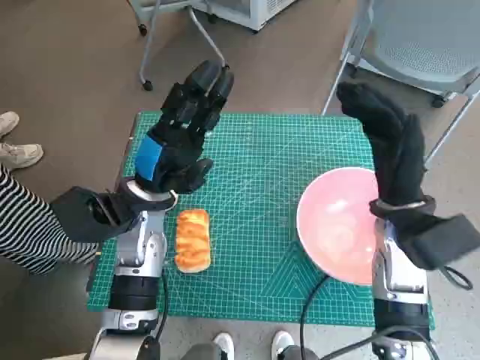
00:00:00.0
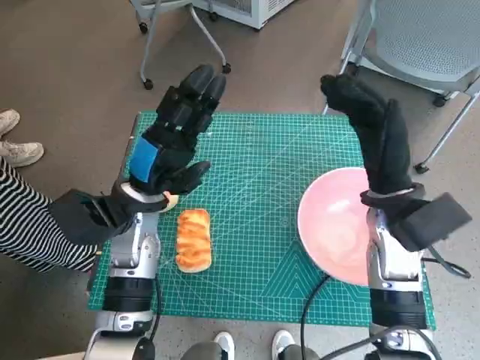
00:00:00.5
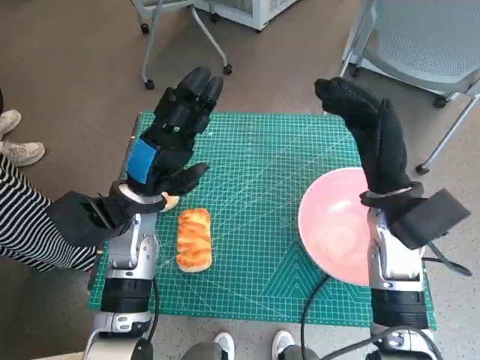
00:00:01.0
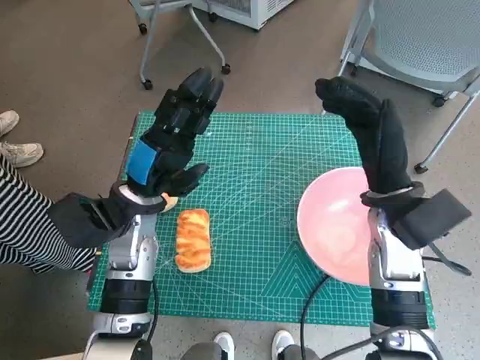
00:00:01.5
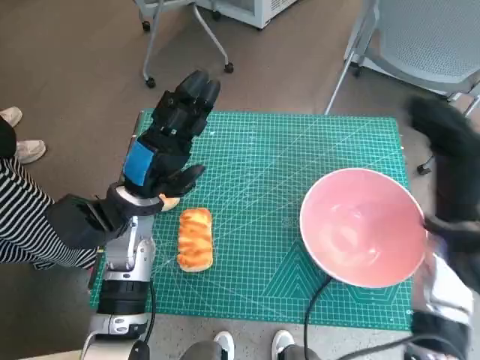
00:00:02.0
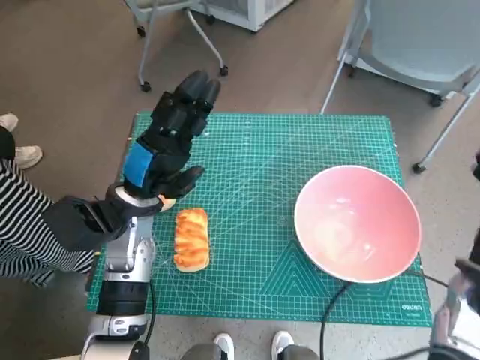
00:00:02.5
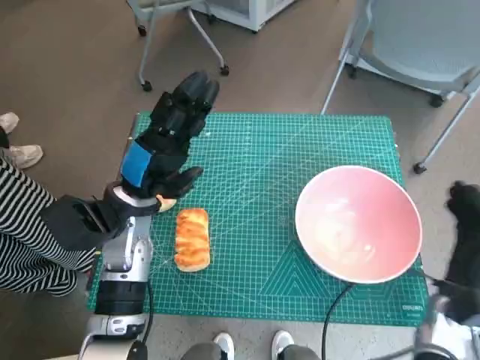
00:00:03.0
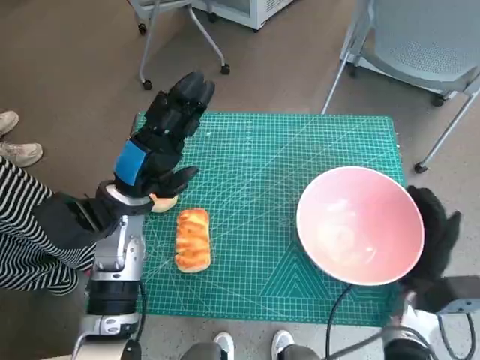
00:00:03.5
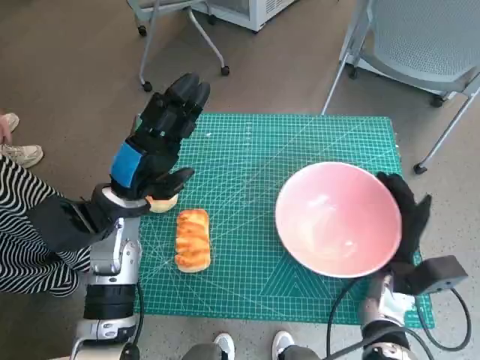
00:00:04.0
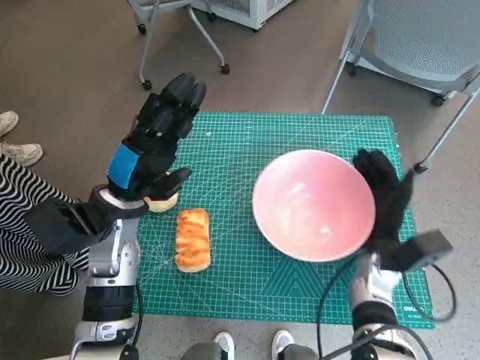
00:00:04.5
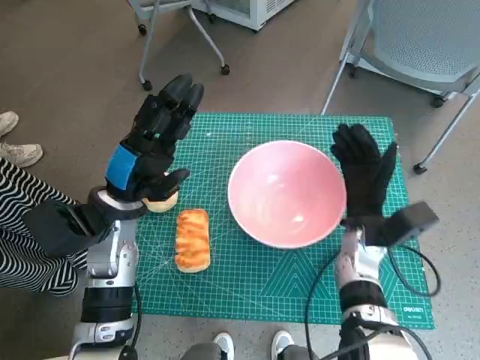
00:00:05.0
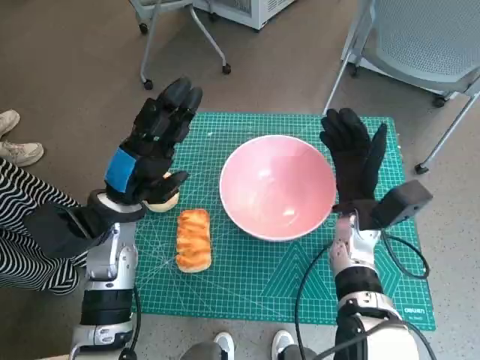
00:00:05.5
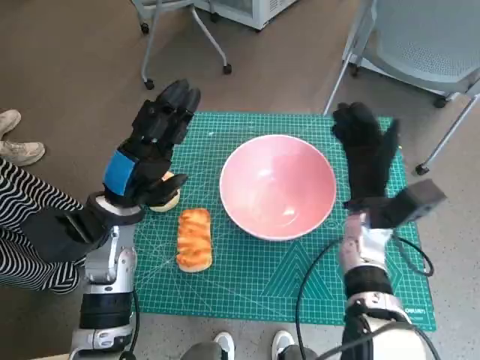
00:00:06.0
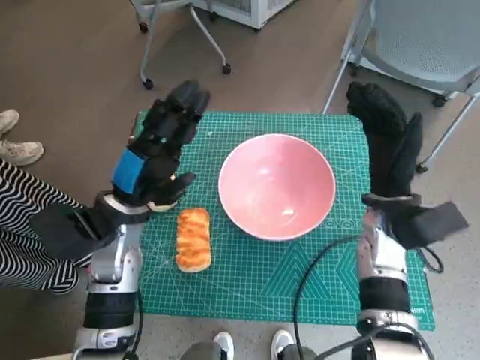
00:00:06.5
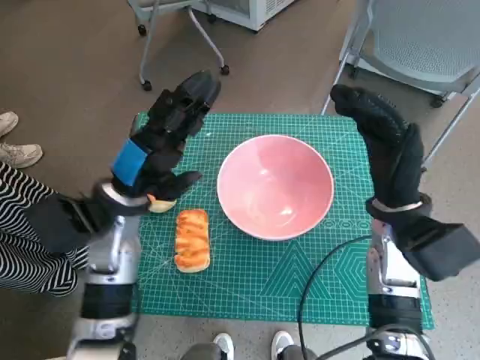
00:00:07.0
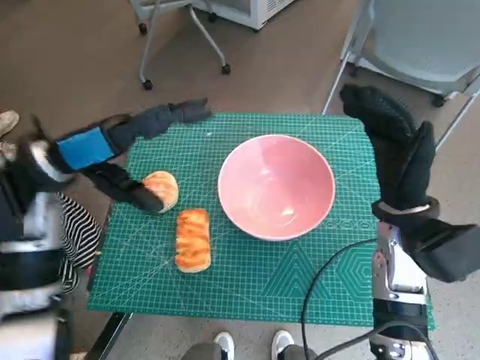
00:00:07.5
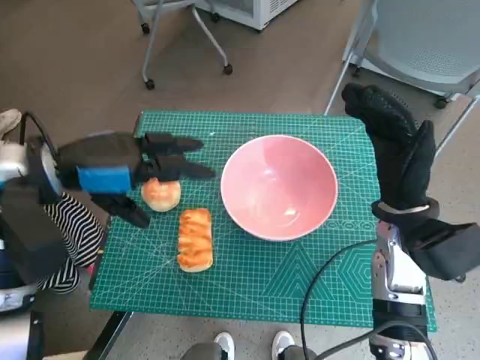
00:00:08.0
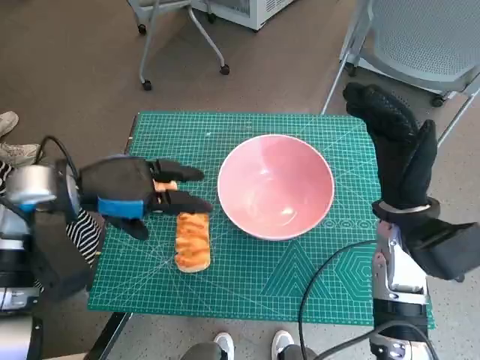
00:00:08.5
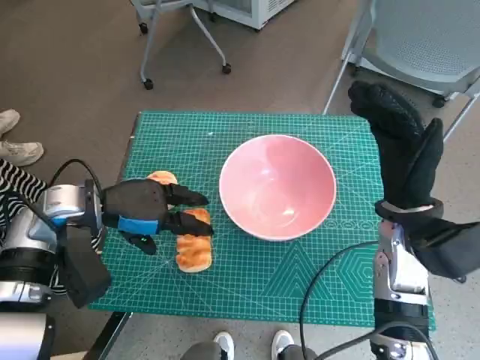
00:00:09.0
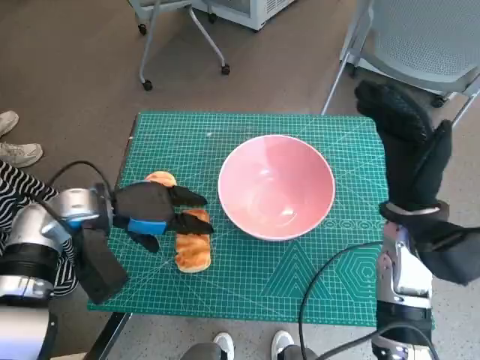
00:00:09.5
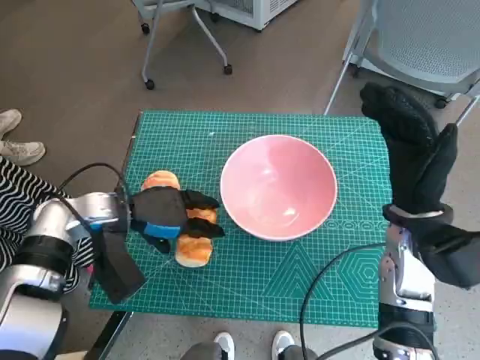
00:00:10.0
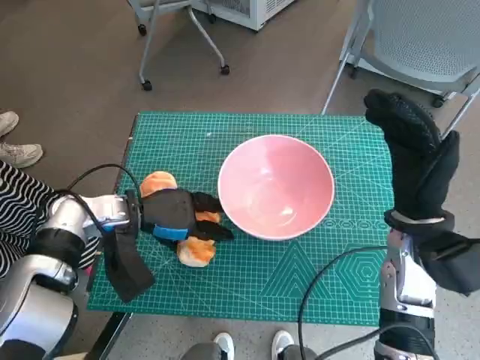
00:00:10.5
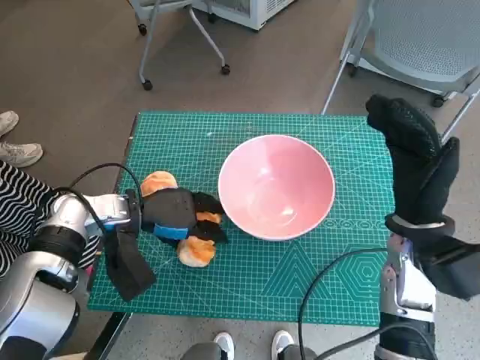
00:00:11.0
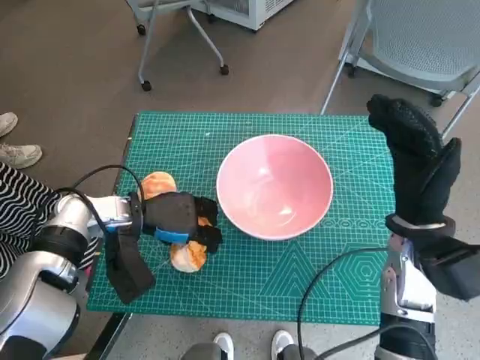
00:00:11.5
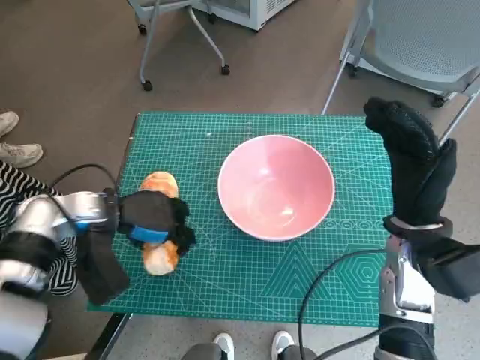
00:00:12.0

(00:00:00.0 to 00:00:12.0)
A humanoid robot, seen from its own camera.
Task of the whole recording: Push the bowl into the center of the table and put the bread into the bowl.
Step, 00:00:00.0 - 00:00:06.0: Move the pink bowl to the center of table with right hand.
Step, 00:00:06.5 - 00:00:11.5: Grasp the long bread with left hand.
00:00:02.0 - 00:00:04.0: The right hand goes some 15 cm downward.
00:00:04.0 - 00:00:06.0: The right hand heads forward, upward and to the left, covering some 10 cm.
00:00:06.0 - 00:00:08.0: Both hands move upward, about 10 cm.
00:00:08.0 - 00:00:10.0: The left hand shifts some 15 cm downward.
00:00:10.0 - 00:00:12.0: The hands stay close to where they were, moving slightly.

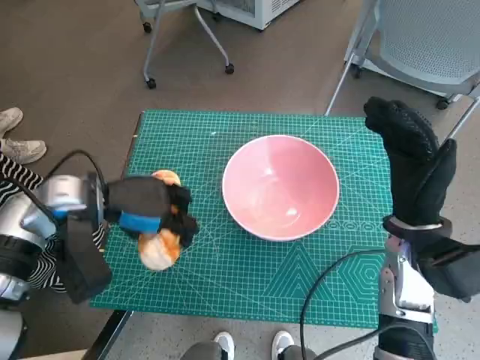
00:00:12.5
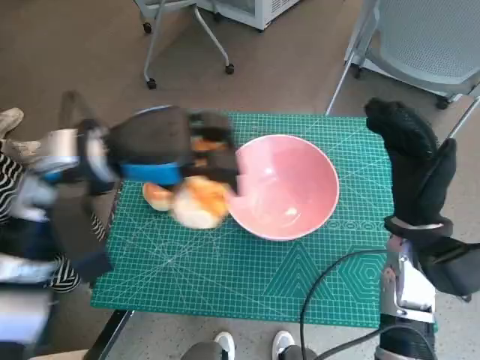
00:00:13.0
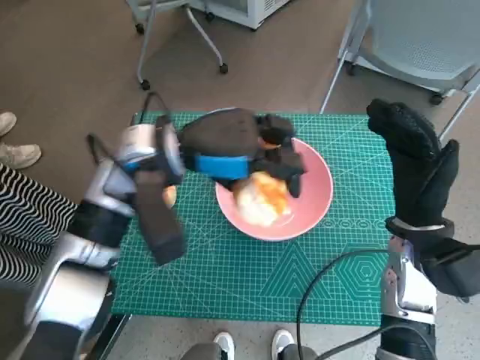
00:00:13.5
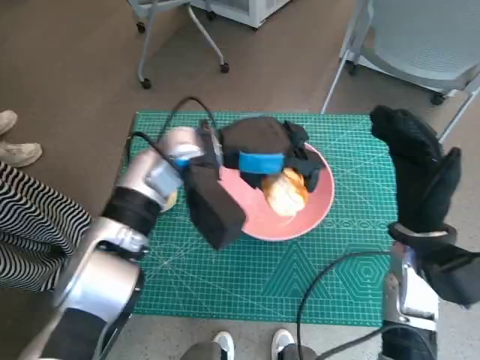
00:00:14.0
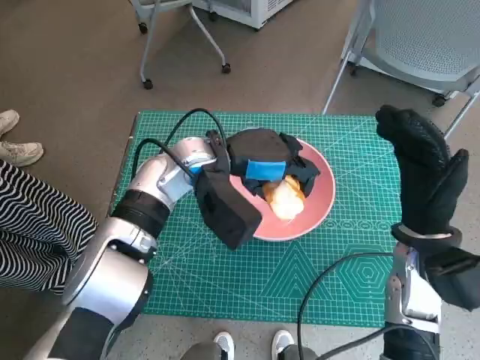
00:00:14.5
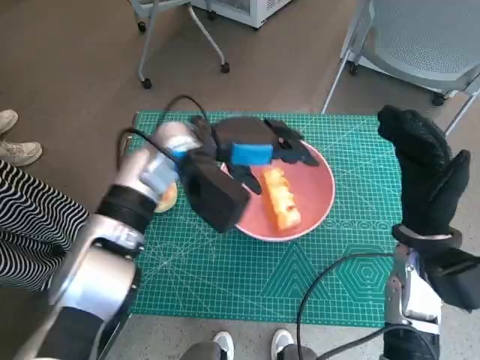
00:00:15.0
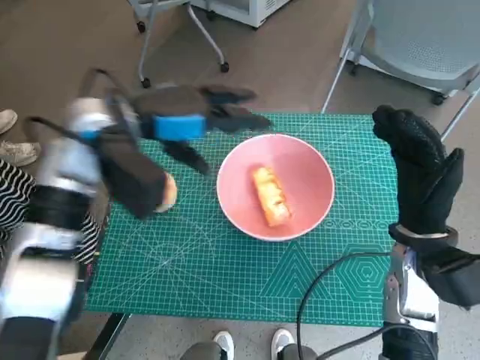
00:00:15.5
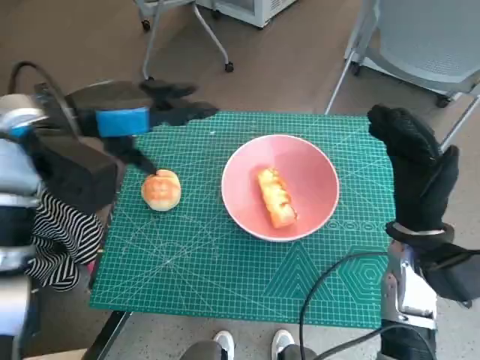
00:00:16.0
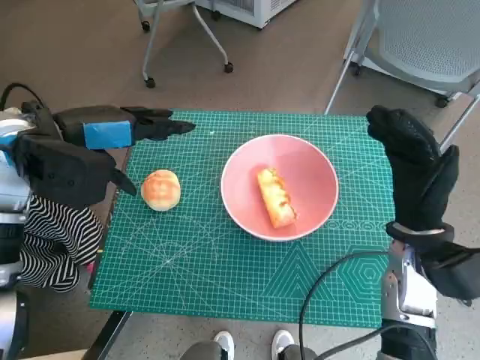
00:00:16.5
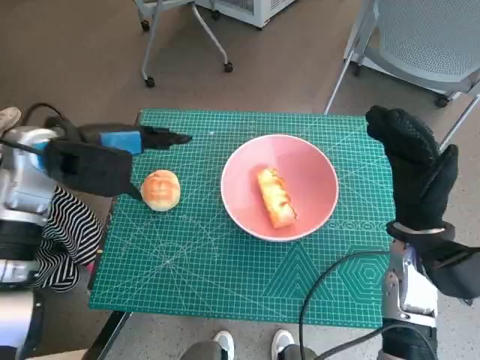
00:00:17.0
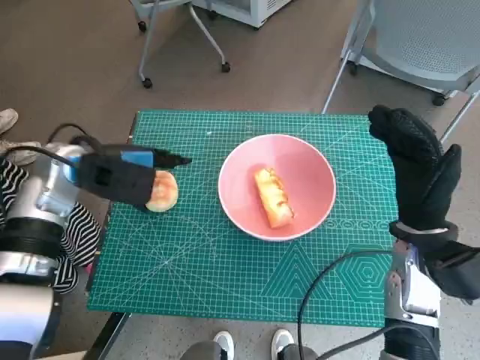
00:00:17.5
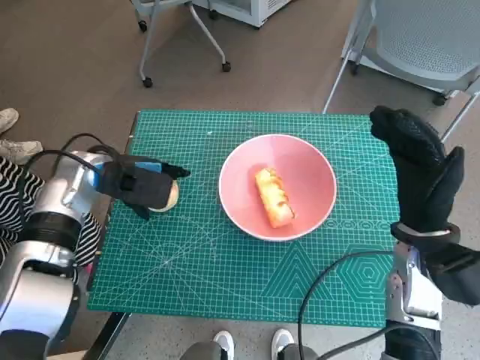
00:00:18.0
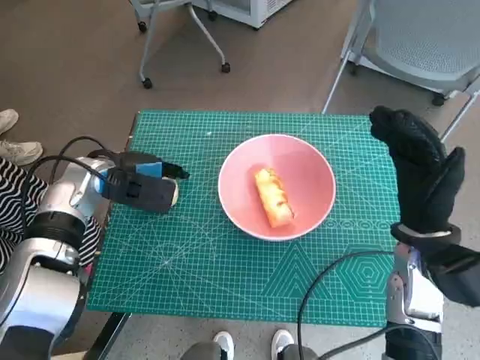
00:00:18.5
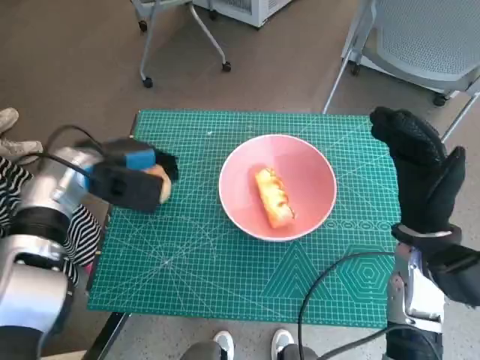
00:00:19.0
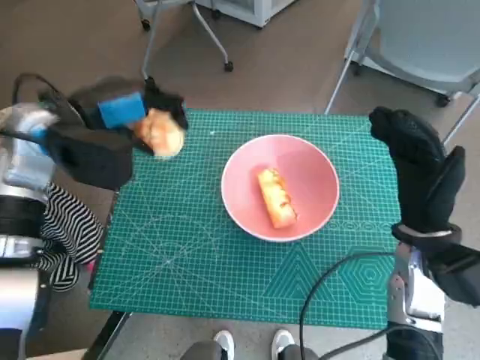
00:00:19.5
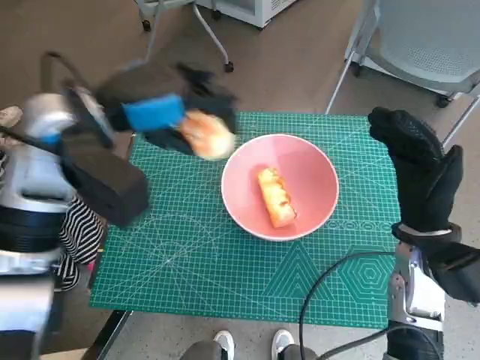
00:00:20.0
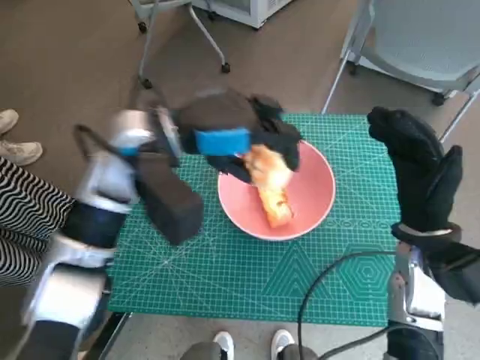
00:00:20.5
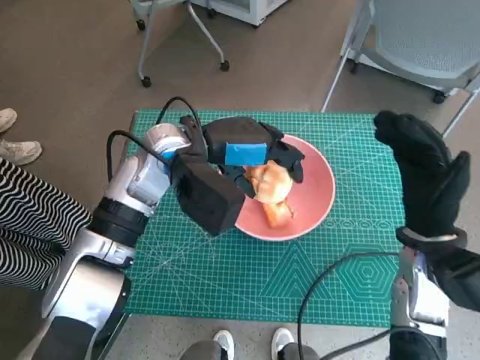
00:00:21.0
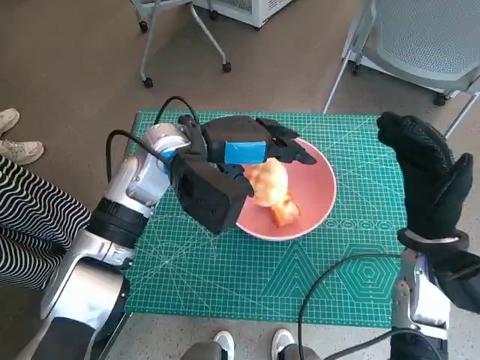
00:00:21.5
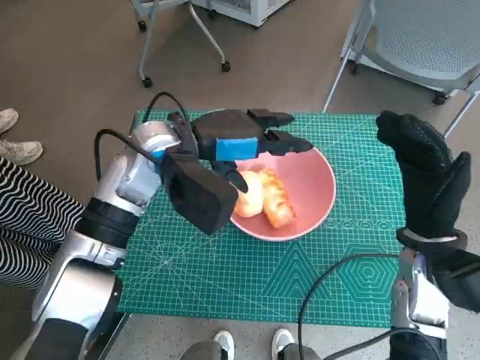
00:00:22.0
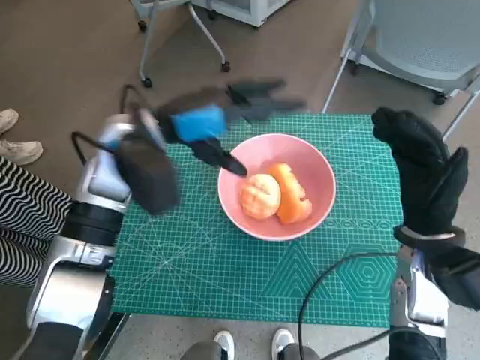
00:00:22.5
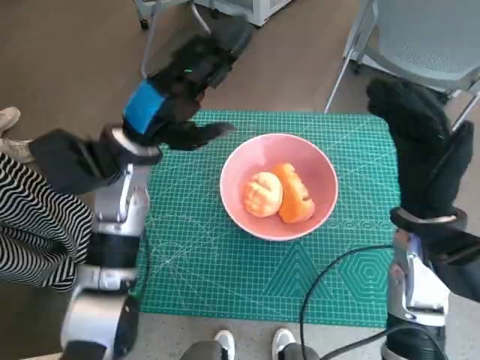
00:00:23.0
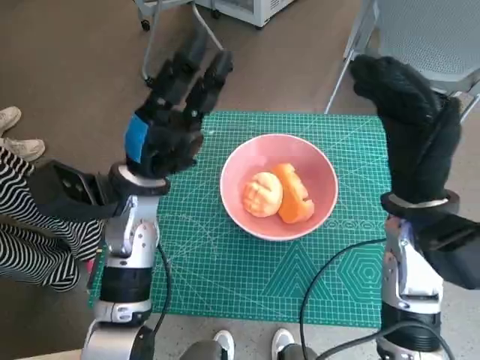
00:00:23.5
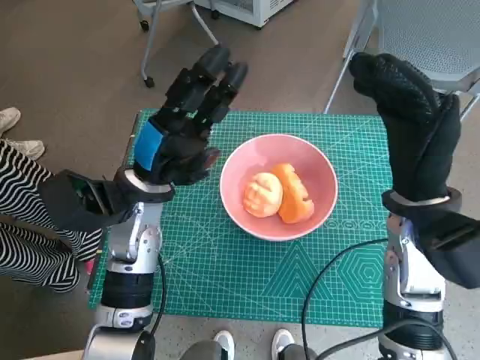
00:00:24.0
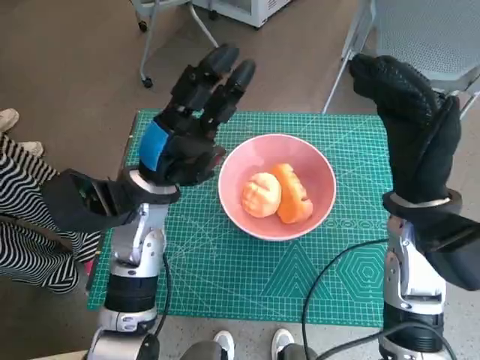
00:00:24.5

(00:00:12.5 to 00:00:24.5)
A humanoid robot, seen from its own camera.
Task of the whole recording: Push the bowl into the center of the table and put the bread into the bowl.
Step, 00:00:12.5 - 00:00:15.0: Place the long bread in pink bowl with left hand.
Step, 00:00:15.5 - 00:00:18.5: Grasp the round bread with left hand.
Step, 00:00:19.0 - 00:00:22.0: Place the round bread in pink bowl with left hand.
00:00:12.5 - 00:00:14.5: The left hand moves to the right, some 15 cm.
00:00:14.5 - 00:00:16.5: The left hand is displaced to the left and upward by about 20 cm.
00:00:16.5 - 00:00:18.5: The left hand heads downward, covering about 10 cm.
00:00:18.5 - 00:00:20.5: The left hand shifts about 15 cm upward and to the right.
00:00:20.5 - 00:00:22.5: The hands move only a little.
00:00:22.5 - 00:00:24.5: The right hand is displaced upward by about 5 cm. Meanwhile the left hand travels downward by roughly 5 cm.

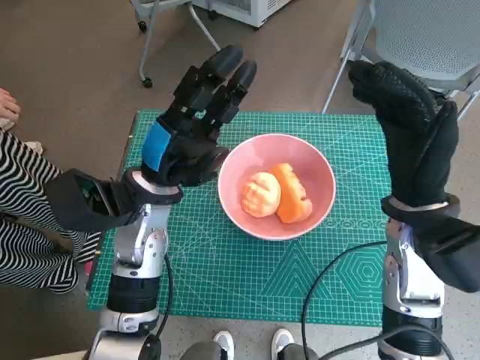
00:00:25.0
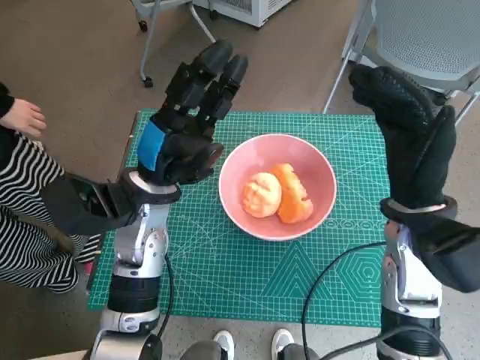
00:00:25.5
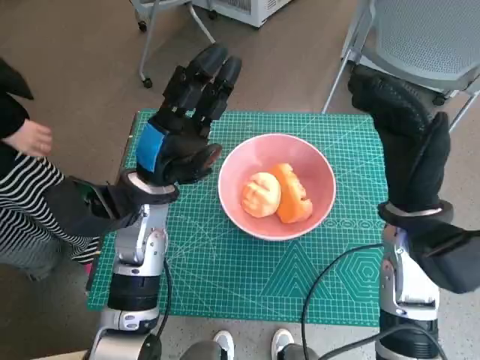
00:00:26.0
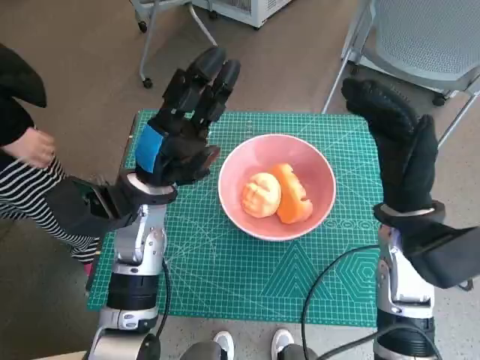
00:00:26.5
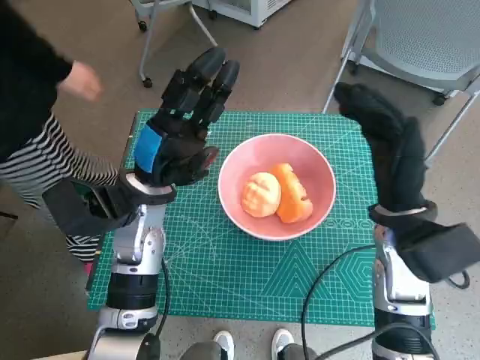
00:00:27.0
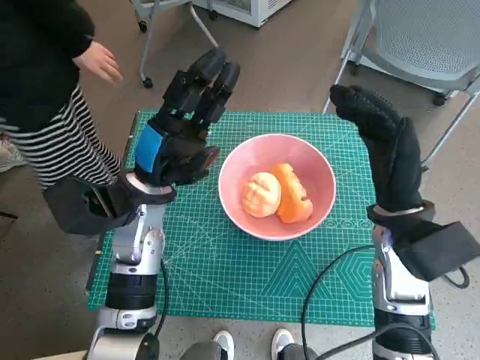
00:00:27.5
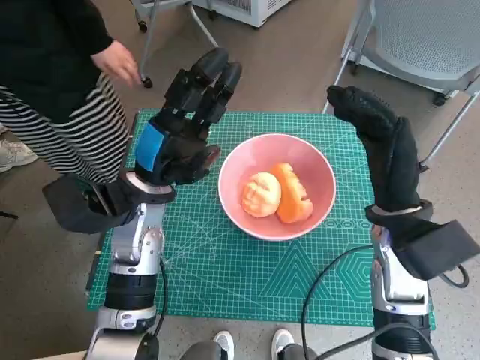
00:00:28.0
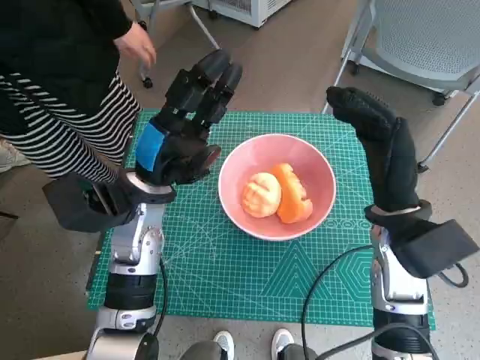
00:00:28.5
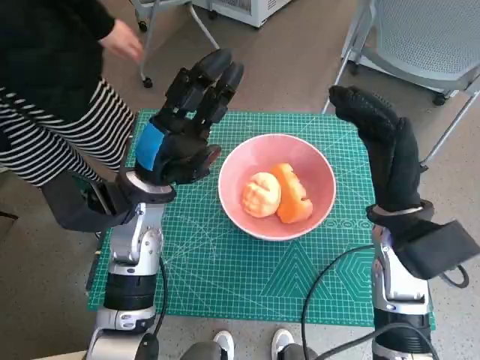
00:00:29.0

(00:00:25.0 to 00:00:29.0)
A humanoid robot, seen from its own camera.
Task of the whole recording: Push the bowl into the center of the table and put the bread into the bowl.
00:00:27.0 - 00:00:29.0: Neither hand changes place.
